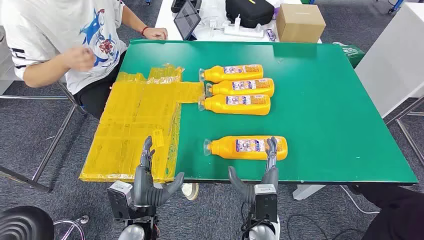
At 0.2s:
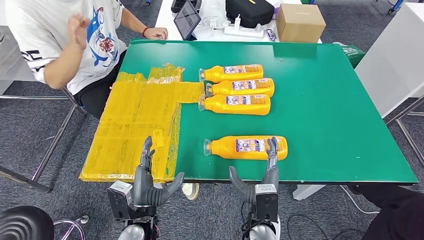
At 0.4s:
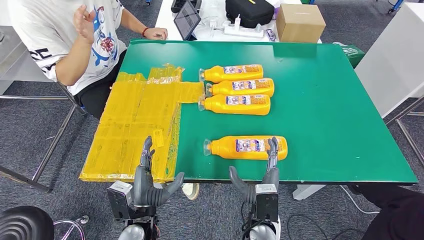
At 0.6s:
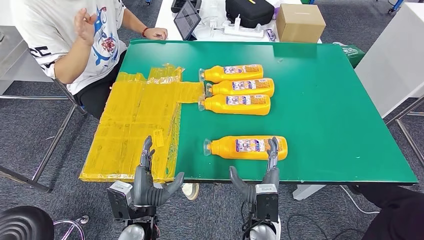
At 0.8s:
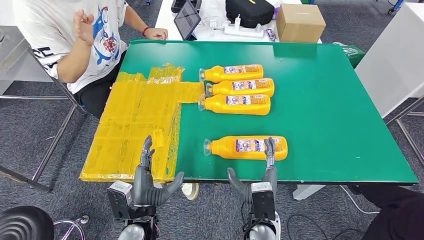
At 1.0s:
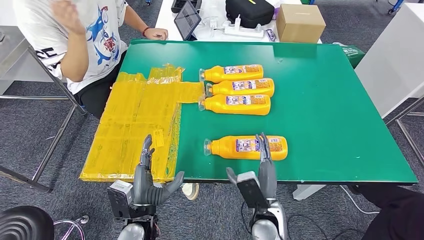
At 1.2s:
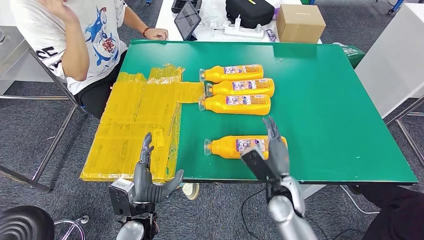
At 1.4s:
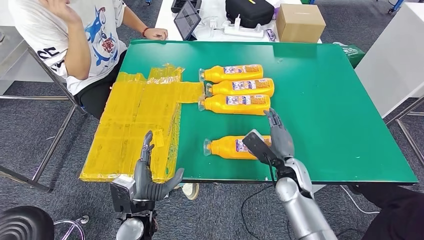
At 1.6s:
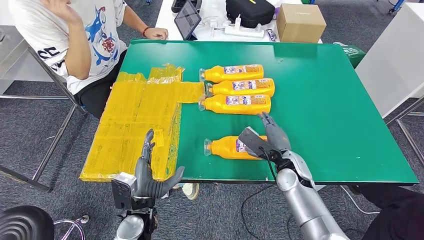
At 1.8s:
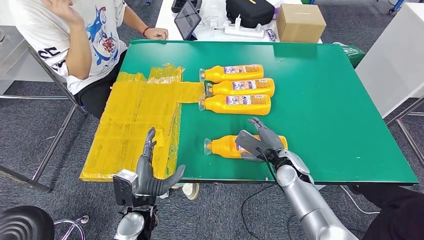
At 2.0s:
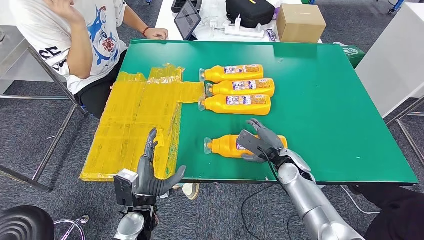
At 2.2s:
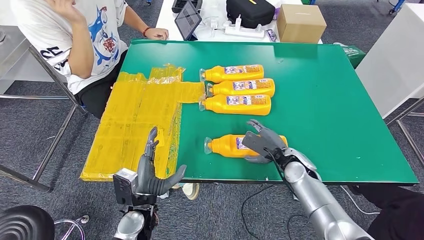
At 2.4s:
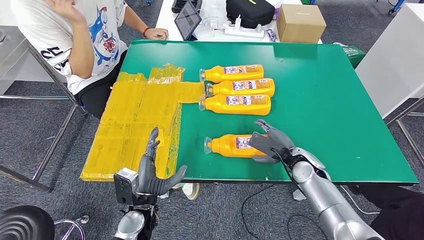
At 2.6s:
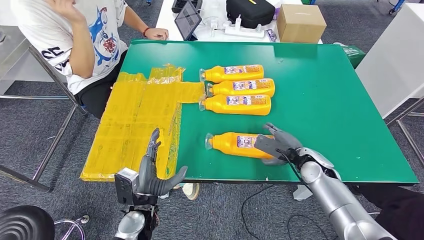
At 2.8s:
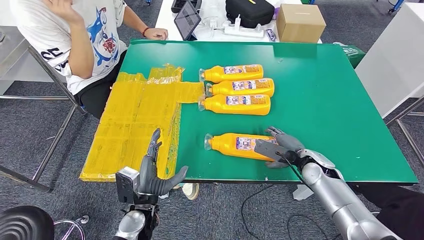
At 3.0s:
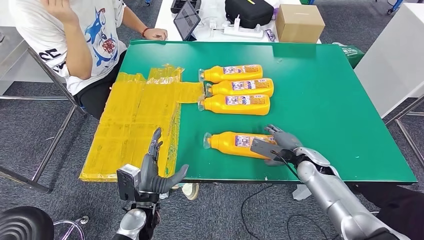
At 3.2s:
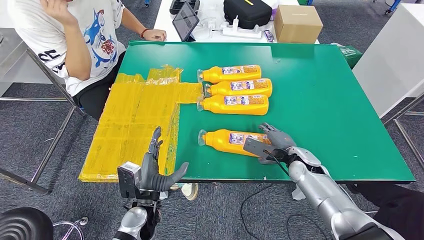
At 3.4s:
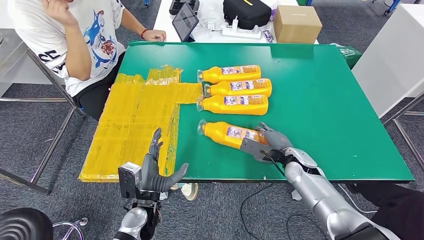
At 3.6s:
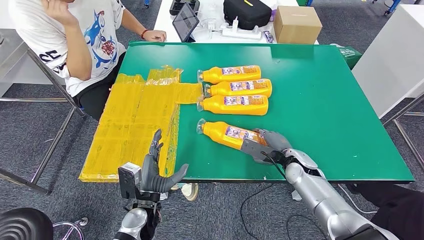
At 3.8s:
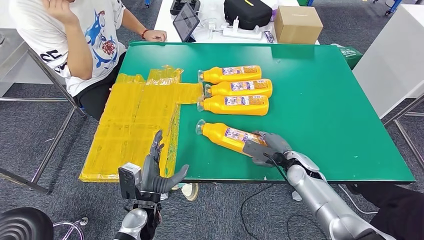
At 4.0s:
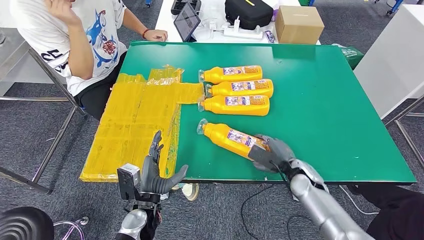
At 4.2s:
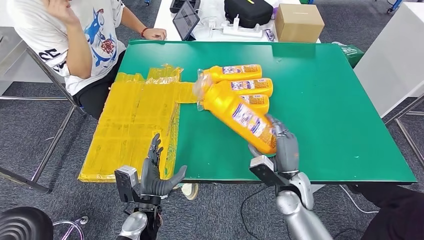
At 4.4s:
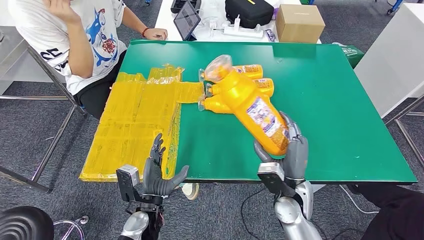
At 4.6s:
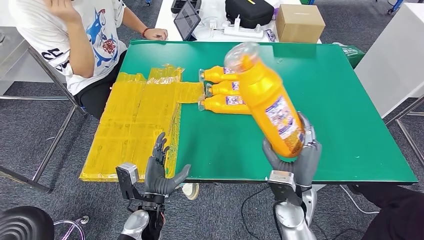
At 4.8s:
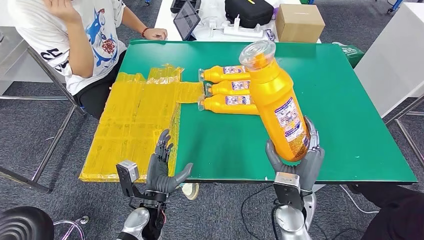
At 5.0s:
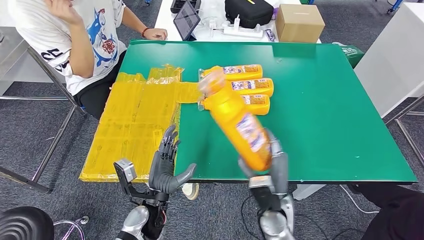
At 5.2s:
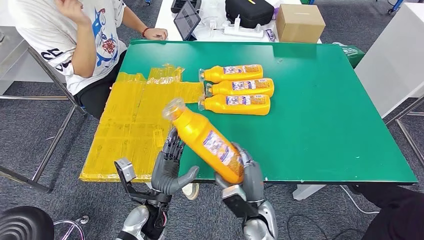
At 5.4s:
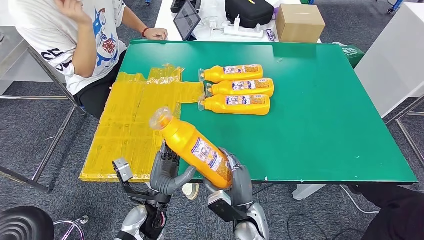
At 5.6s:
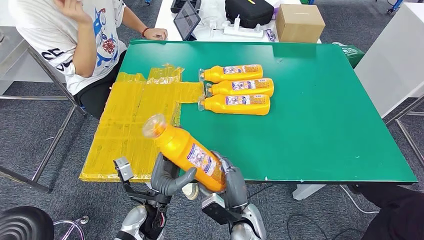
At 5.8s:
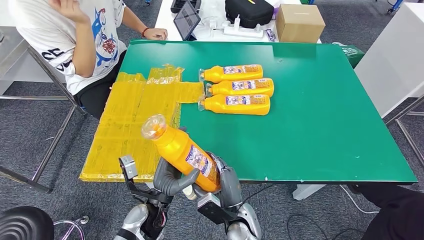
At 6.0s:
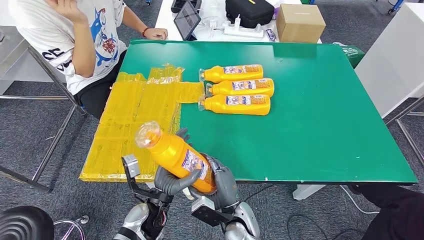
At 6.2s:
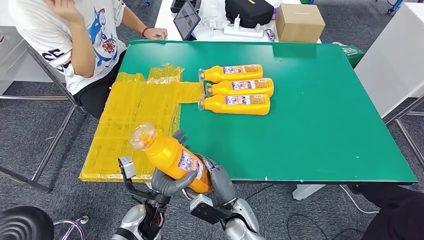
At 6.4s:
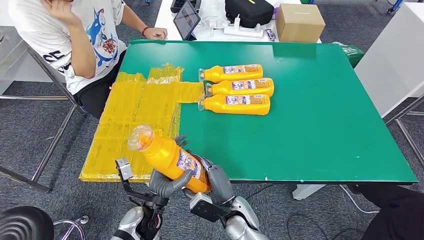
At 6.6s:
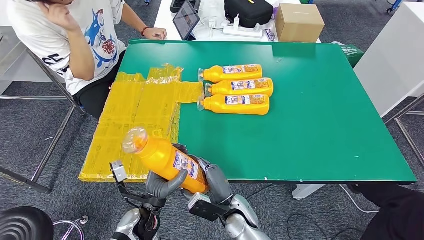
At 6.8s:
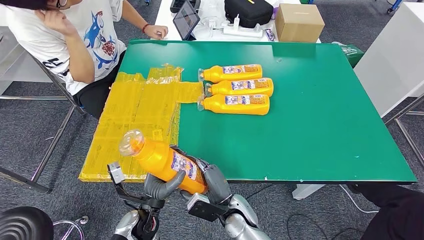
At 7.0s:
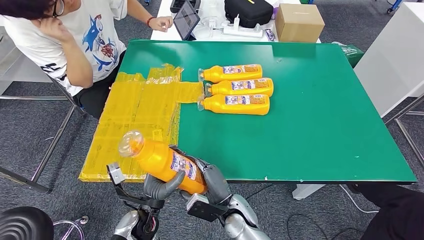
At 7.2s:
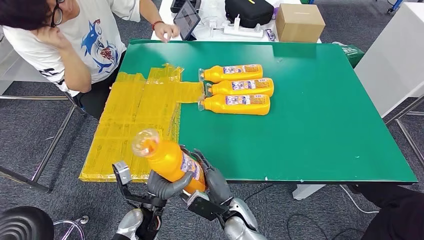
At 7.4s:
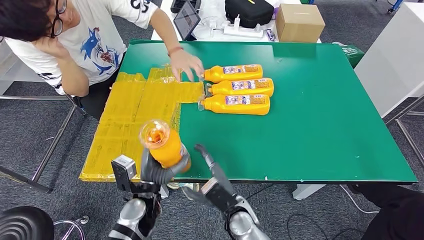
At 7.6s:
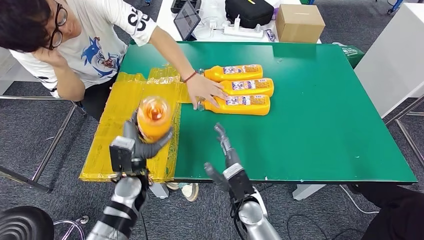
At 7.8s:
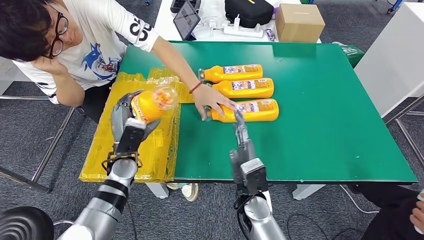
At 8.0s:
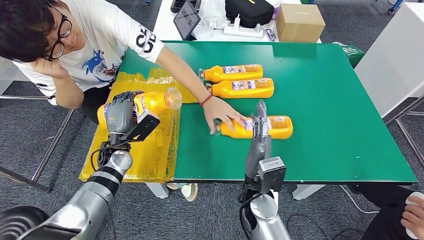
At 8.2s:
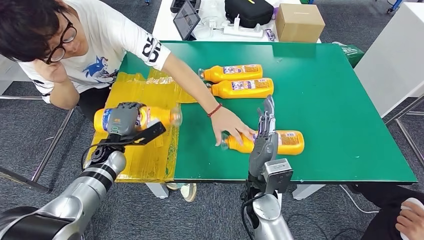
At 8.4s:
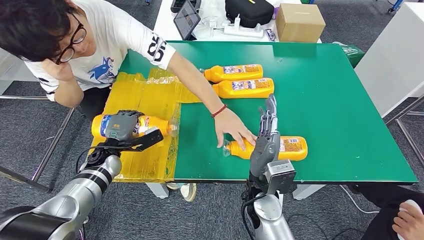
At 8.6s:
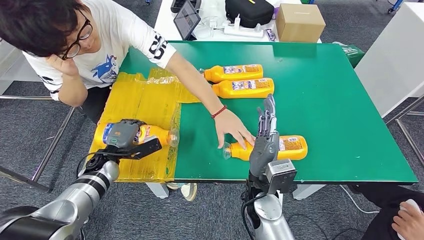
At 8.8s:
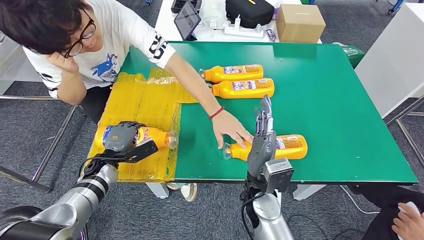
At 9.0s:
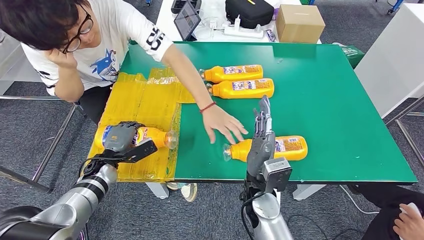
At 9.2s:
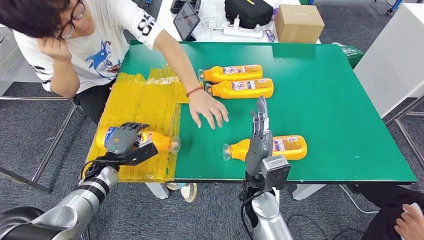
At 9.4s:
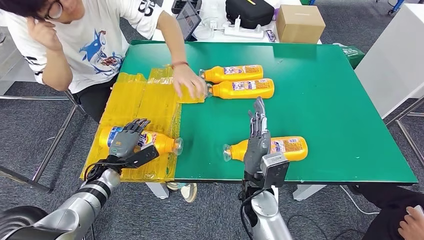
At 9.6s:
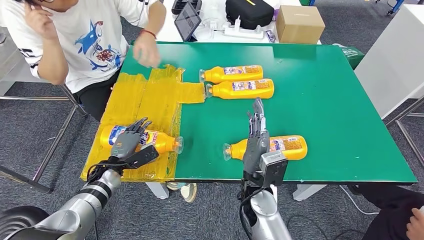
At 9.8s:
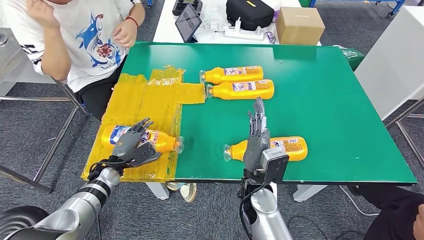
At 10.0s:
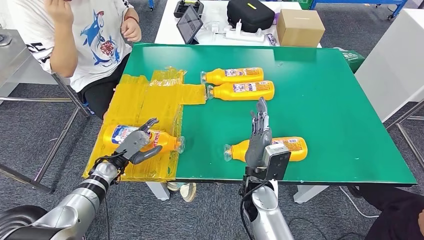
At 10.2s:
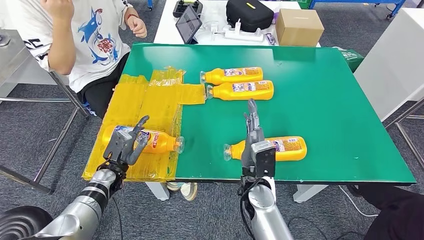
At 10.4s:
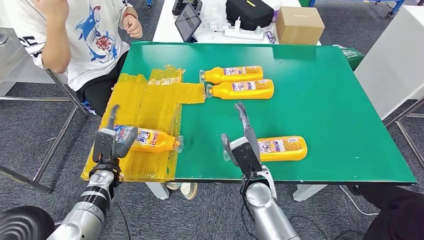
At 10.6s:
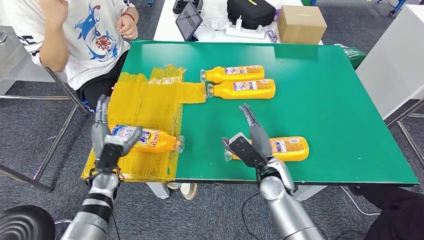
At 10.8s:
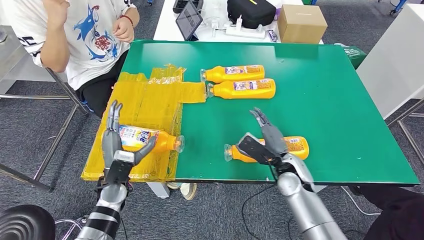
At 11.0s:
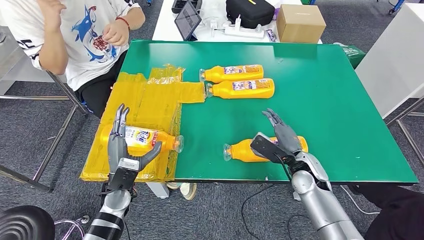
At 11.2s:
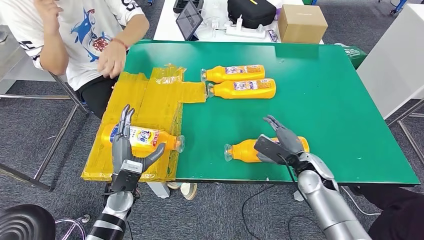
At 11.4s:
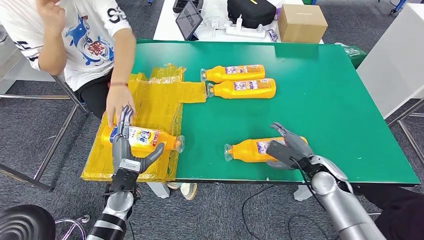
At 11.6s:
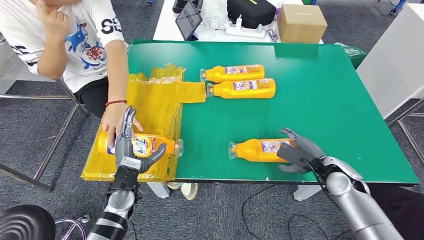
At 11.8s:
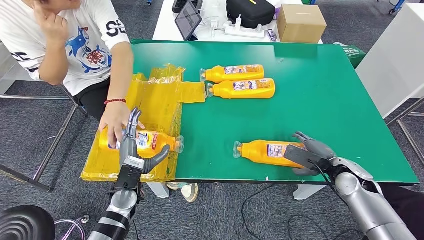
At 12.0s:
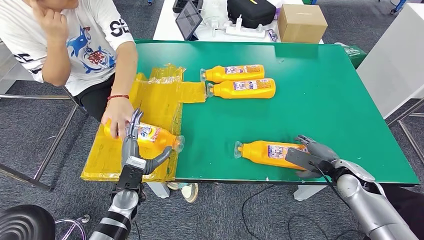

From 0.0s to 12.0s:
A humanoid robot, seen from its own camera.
Step, from 0.0s to 5.4s: Take the bottle from the table.
Step, from 5.8s to 9.8s: Flip the bottle to face forward.
From 1.6s to 3.0s: The right hand shifts roughly 5 cm to the right.
From 3.0s to 4.4s: The right hand goes roughly 15 cm backward and to the left.
From 4.4s to 6.0s: The right hand travels to the left and downward by some 15 cm.

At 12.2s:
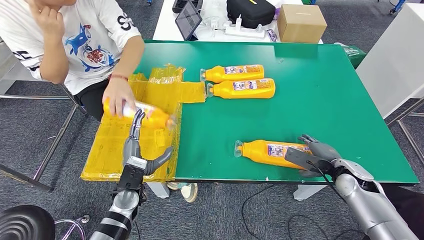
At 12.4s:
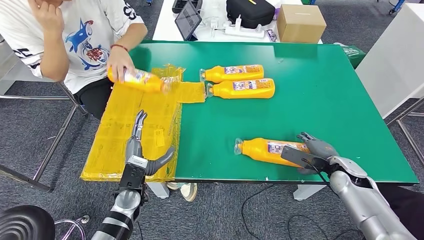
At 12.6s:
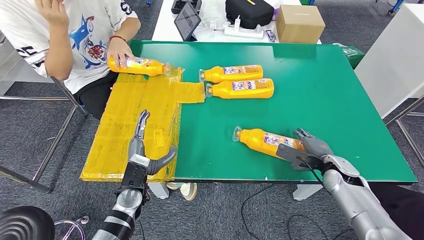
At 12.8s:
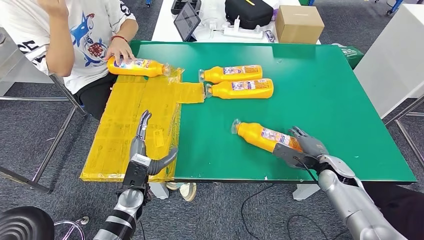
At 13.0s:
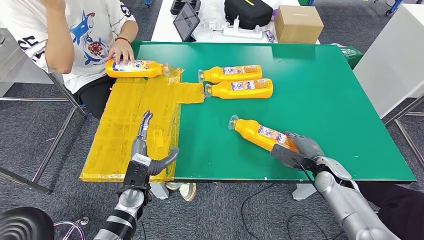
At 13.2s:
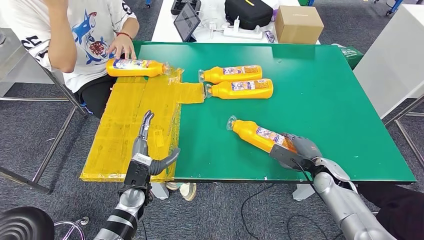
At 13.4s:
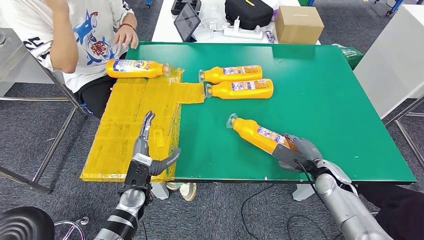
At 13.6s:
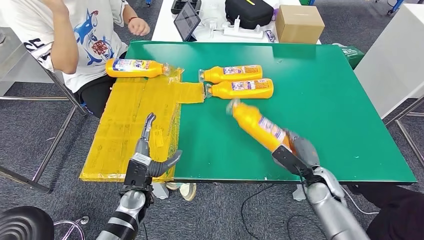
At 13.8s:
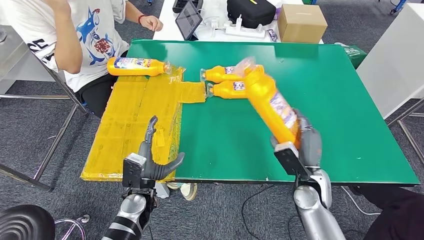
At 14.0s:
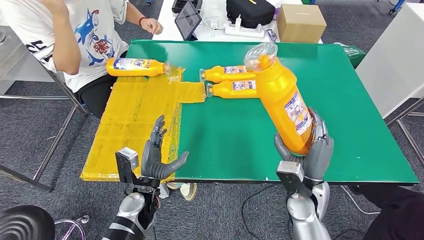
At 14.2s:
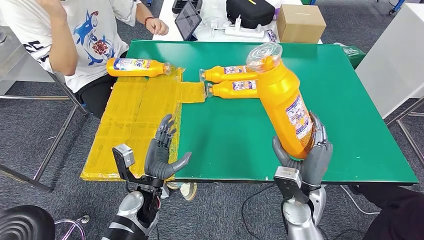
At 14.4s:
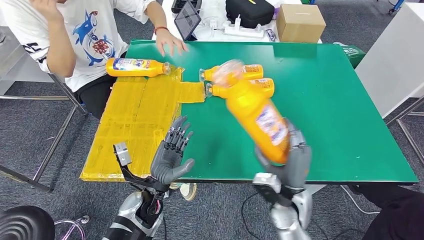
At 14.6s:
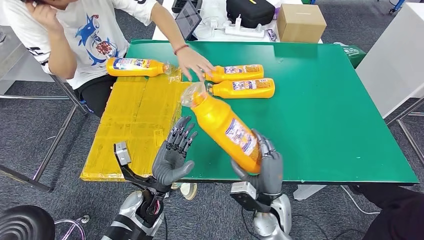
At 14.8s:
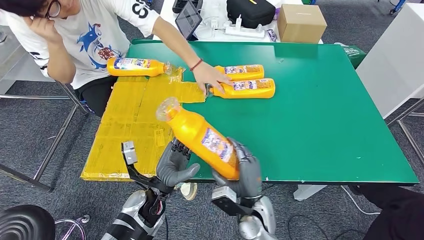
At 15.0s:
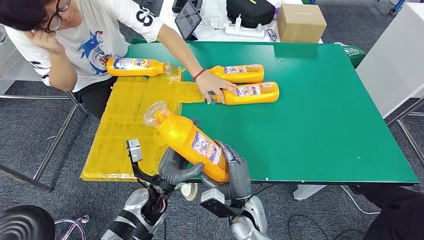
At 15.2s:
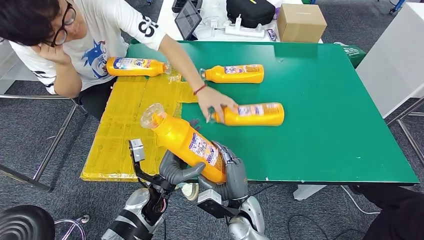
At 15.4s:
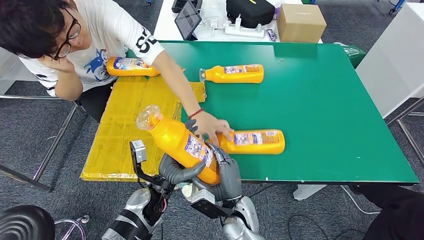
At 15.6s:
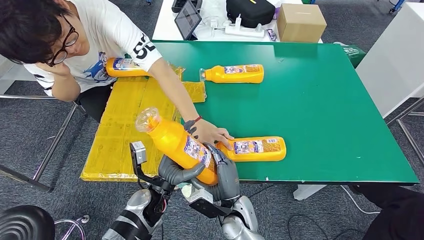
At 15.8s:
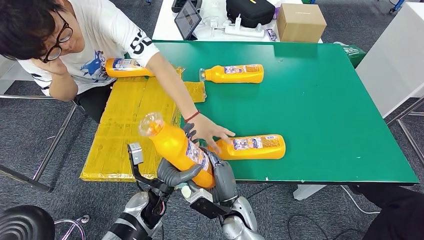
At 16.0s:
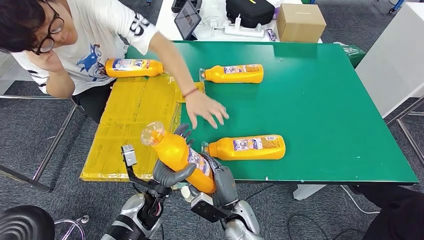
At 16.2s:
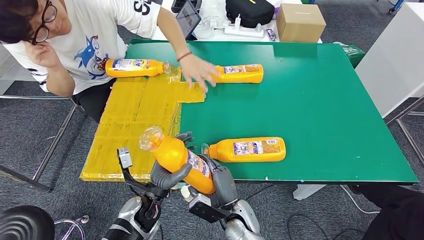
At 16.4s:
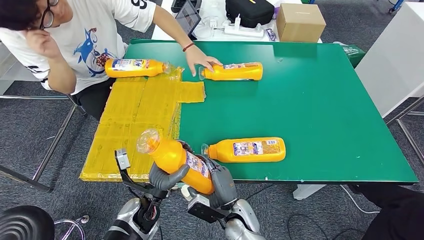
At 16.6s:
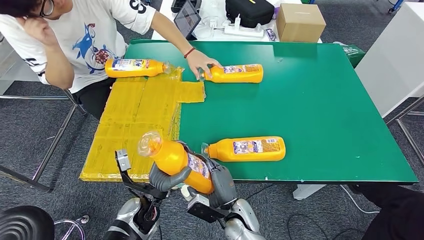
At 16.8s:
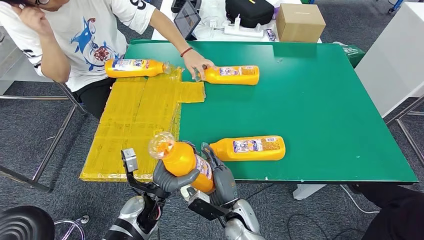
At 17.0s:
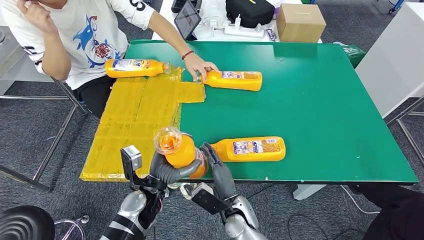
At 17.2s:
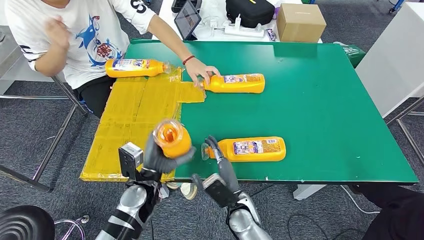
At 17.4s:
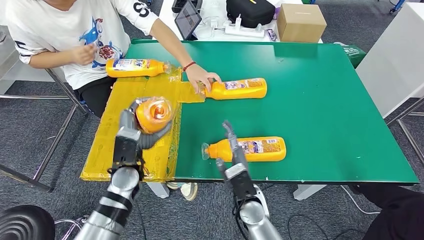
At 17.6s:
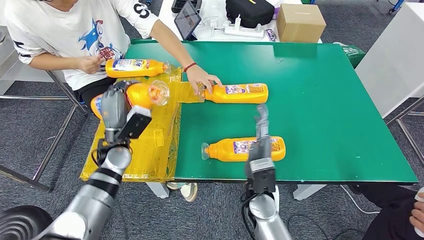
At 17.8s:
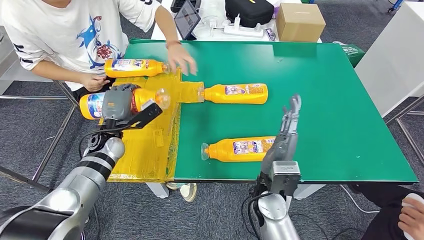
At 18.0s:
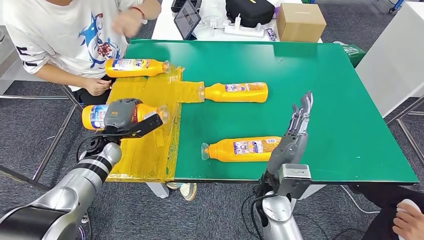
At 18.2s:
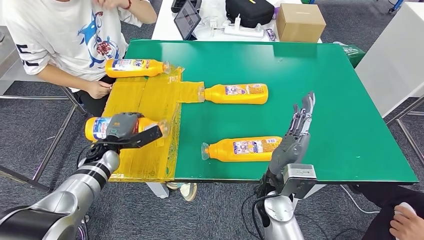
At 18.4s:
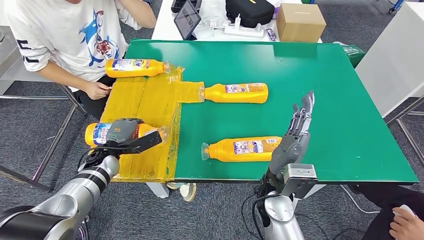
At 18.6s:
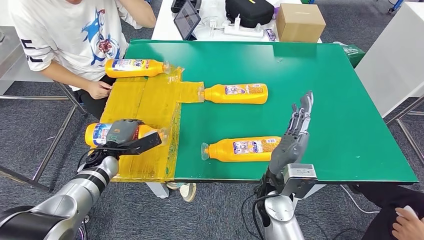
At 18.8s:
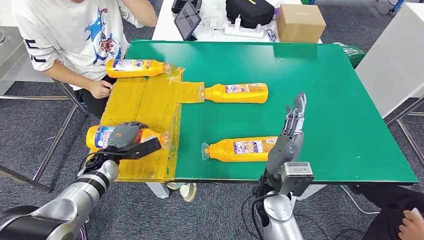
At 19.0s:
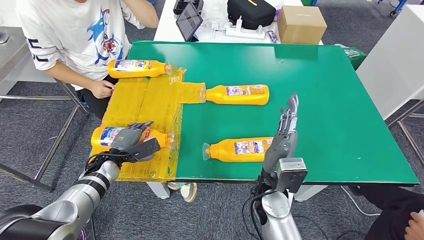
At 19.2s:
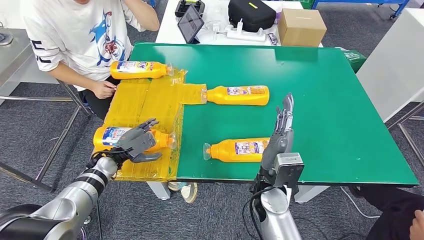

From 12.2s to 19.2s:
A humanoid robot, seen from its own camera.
Step, from 12.2s to 15.4s: Pick up the bottle from the table.
